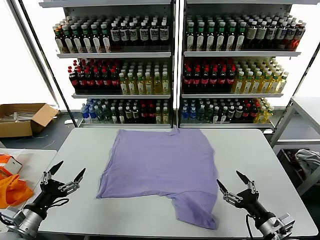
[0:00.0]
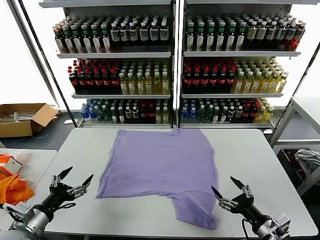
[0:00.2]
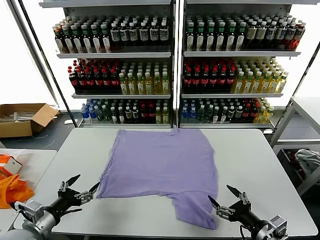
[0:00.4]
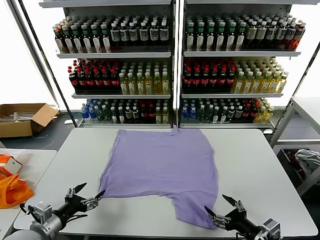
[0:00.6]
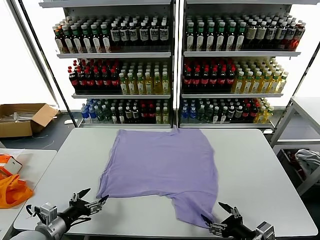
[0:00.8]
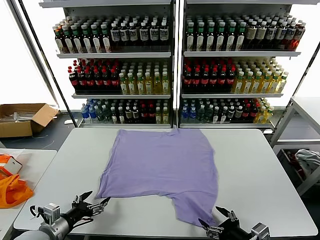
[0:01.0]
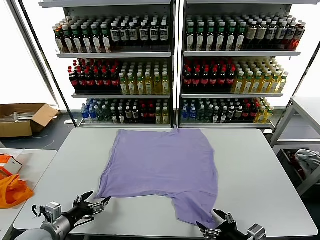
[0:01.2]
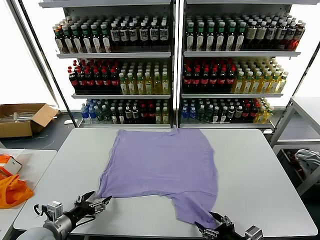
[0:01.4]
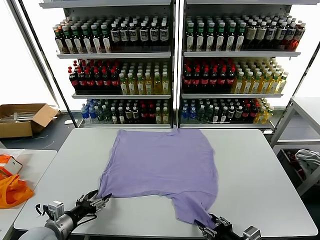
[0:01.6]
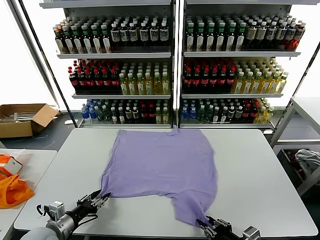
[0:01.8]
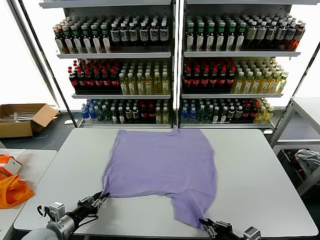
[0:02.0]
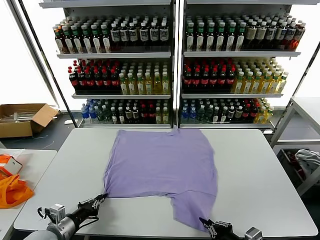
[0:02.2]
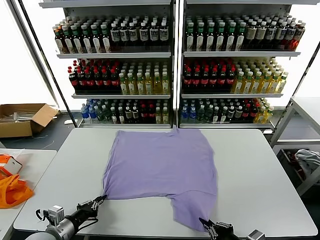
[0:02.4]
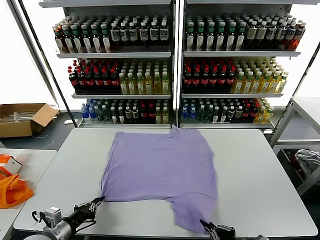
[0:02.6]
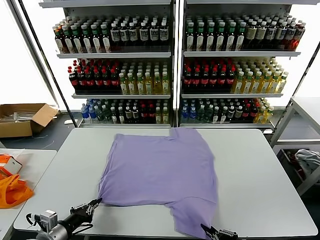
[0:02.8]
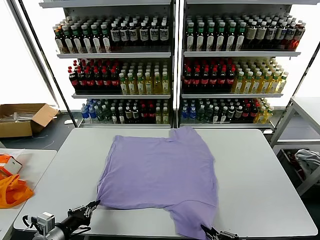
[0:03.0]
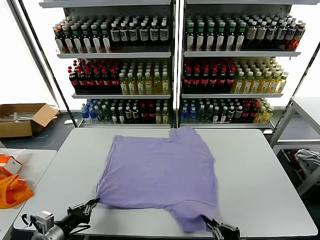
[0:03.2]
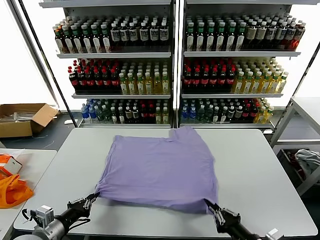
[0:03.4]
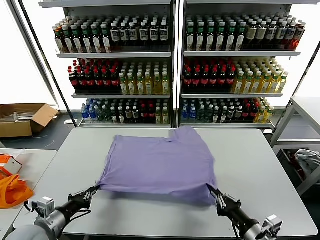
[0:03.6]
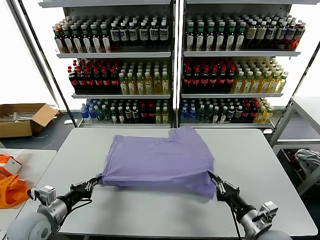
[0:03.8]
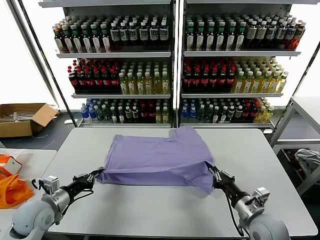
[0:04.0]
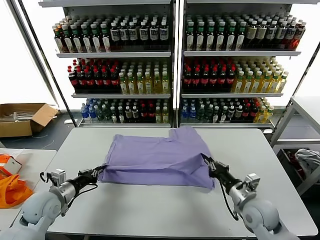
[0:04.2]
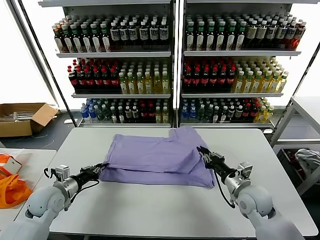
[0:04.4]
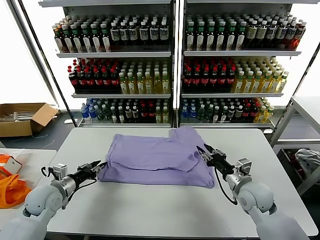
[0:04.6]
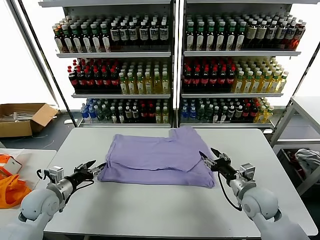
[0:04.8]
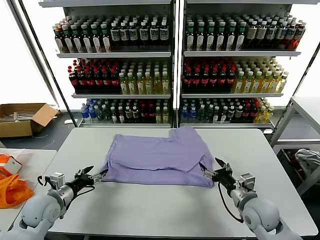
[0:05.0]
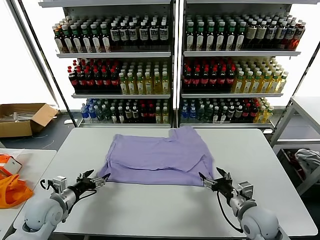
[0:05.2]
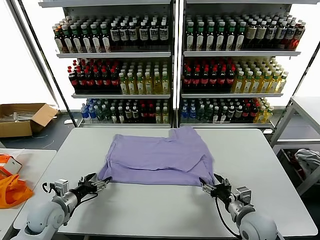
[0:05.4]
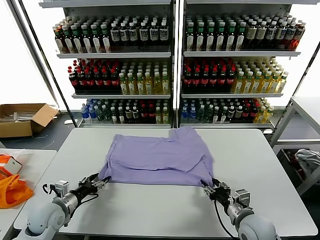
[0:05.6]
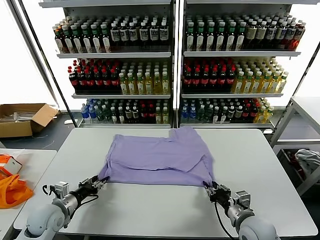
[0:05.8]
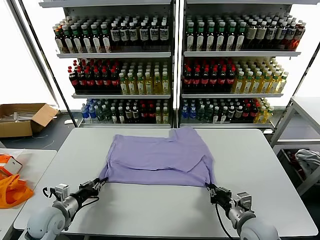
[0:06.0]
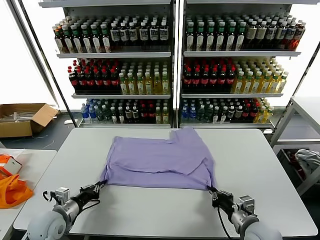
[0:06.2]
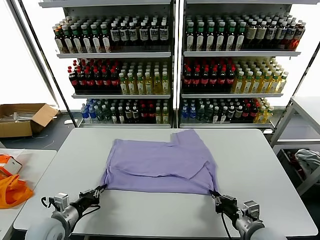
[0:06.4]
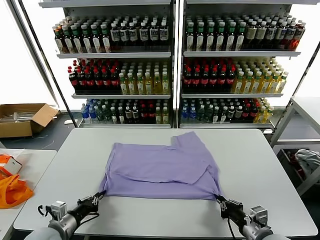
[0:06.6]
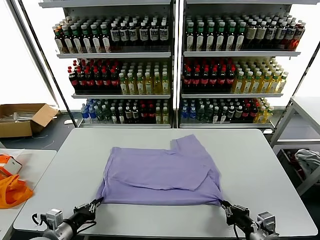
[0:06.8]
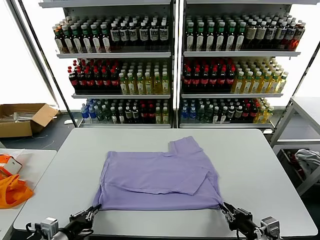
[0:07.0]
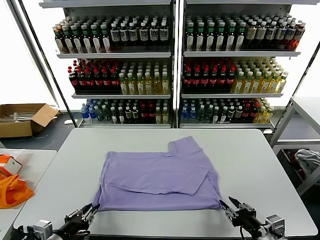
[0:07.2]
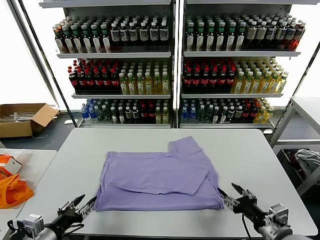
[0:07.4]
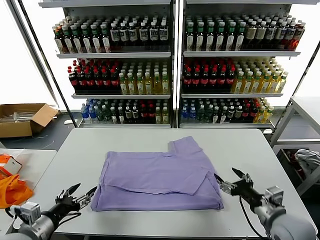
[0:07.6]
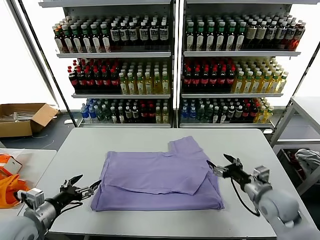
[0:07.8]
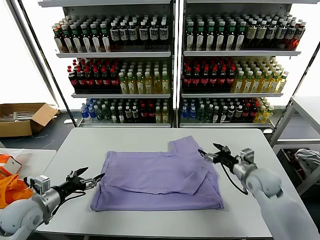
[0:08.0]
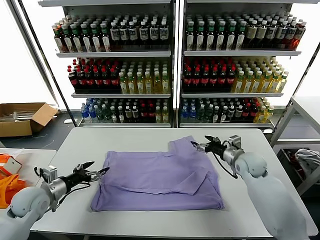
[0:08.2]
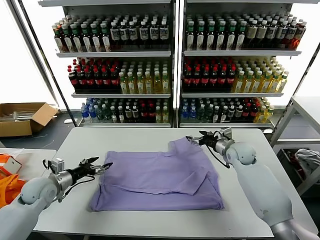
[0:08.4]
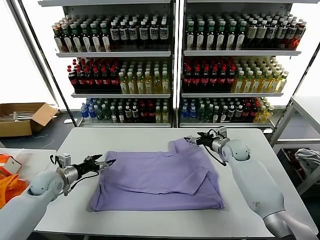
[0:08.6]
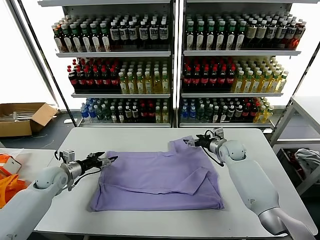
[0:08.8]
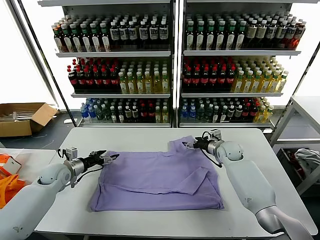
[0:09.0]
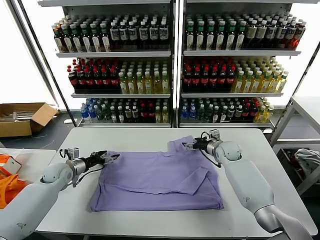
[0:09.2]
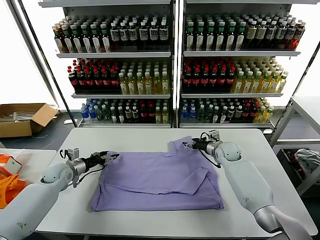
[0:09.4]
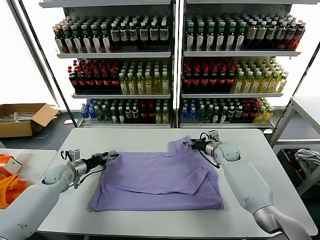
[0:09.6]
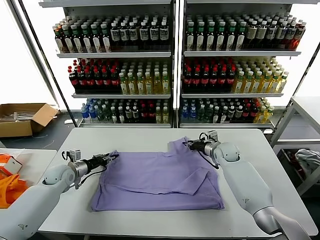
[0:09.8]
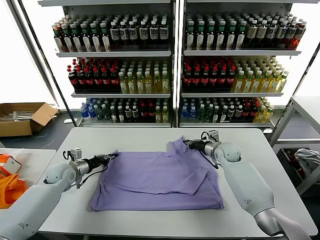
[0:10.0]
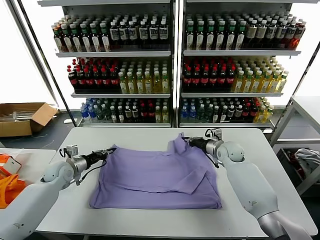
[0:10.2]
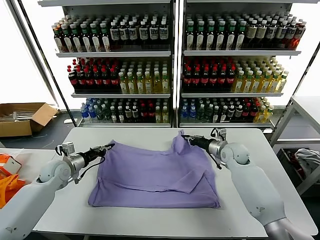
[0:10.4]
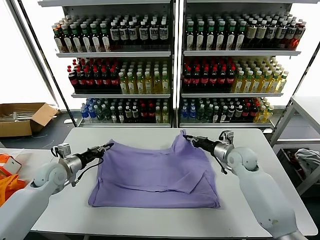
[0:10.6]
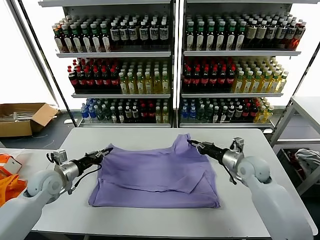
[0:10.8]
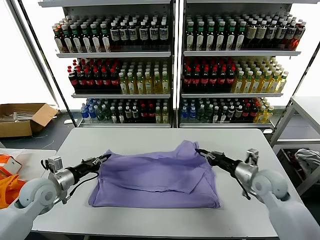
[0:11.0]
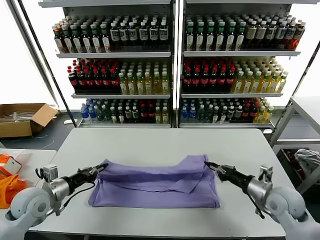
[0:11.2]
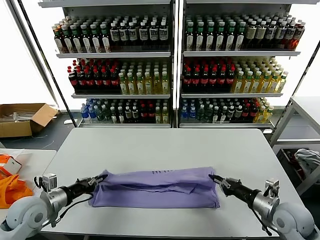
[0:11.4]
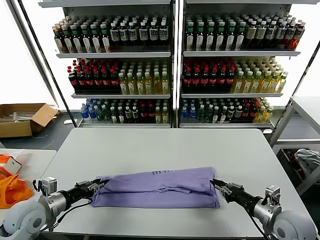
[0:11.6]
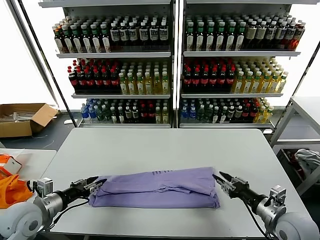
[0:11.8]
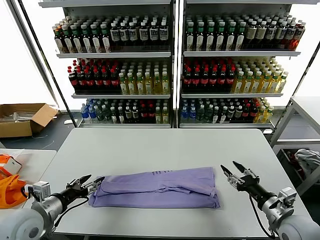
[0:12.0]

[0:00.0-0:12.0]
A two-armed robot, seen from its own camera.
Task of the whole recording: fold and organize the clothes.
Step, 0.0 to 2.2 s: use both grippers simultaneously to clamp the lower edge of the clothing fabric.
Step, 2.4 to 4.6 s: use both grippers to drag the lower edge of the fabric forward and fold it over the upper edge.
Step, 4.8 to 7.2 s: Drag the clothes downward with both gripper.
Step, 7.4 to 9.8 s: use both grippers simultaneously to clamp the upper edge of the clothing fabric.
Step, 10.2 to 11.6 s: use both grippers to drag the upper edge of the fabric backward and fold it over the lower edge.
1.6 to 3.0 s: The right gripper ends up roughly 5 cm from where it was, and closes its fingers; the left gripper shifts by about 5 cm, and closes.
3.0 to 4.4 s: Both grippers move forward, about 20 cm. The right gripper opens.
4.4 to 6.0 s: The left gripper is displaced backward by approximately 5 cm, and opens, then closes again, while the right gripper moves backward, some 10 cm, and opens and closes again.
6.0 to 7.6 s: The right gripper heads upward and to the right, covering roughly 10 cm, moves roughly 10 cm backward and comes back, and opens up. The left gripper heads backward and upward, covering about 15 cm, and opens up.
7.6 to 9.0 s: The grippers both shift forward by approximately 25 cm.
9.0 to 10.4 s: The right gripper shifts about 5 cm backward, and closes, while the left gripper closes its fingers.
10.4 to 12.0 s: The two grippers go about 25 cm backward. The right gripper opens its fingers. The left gripper opens its fingers.

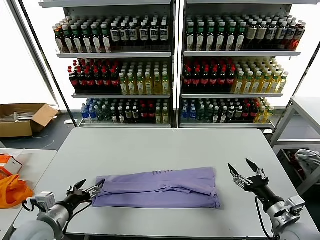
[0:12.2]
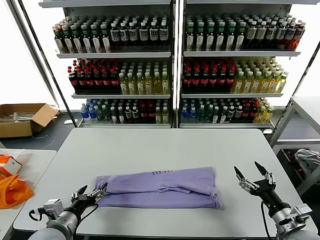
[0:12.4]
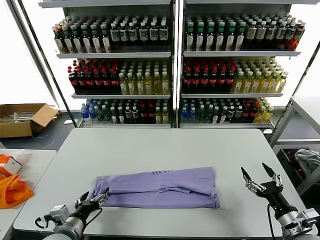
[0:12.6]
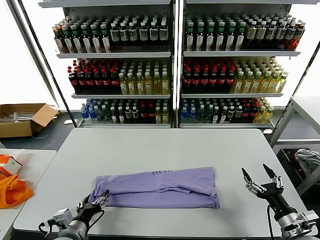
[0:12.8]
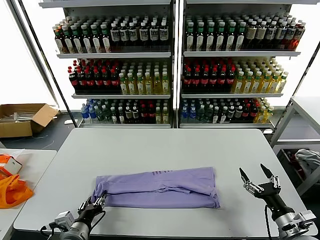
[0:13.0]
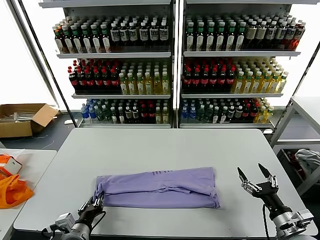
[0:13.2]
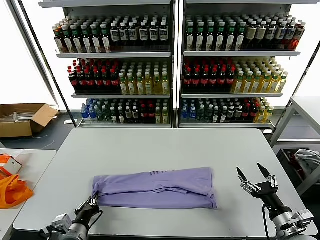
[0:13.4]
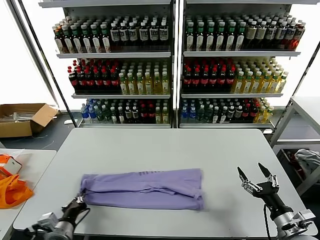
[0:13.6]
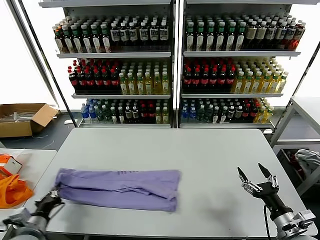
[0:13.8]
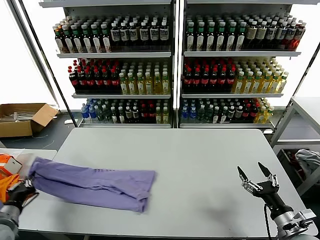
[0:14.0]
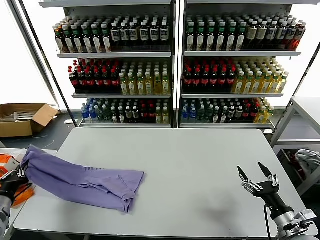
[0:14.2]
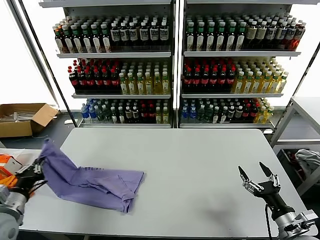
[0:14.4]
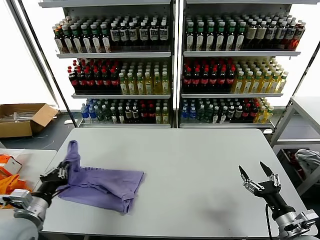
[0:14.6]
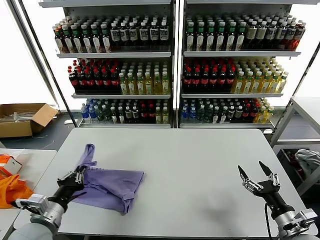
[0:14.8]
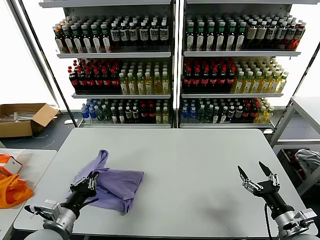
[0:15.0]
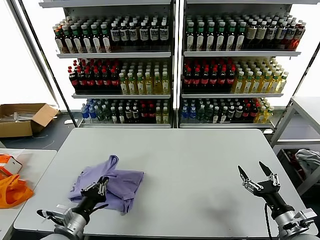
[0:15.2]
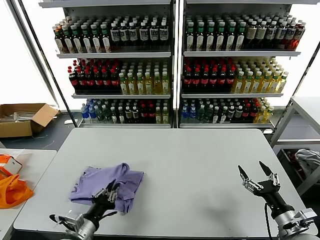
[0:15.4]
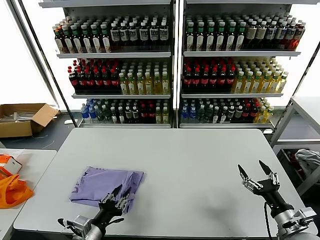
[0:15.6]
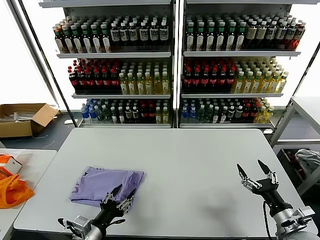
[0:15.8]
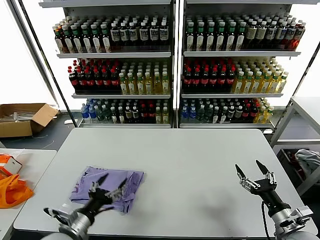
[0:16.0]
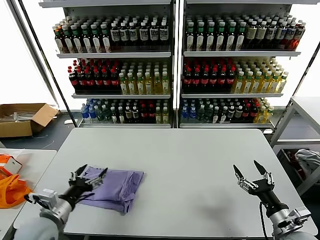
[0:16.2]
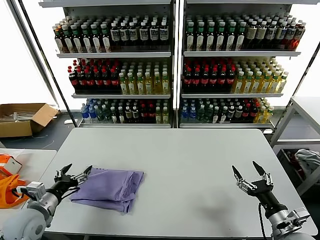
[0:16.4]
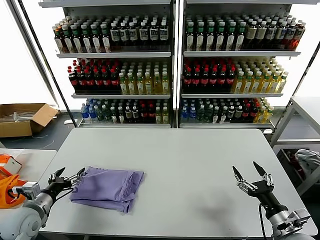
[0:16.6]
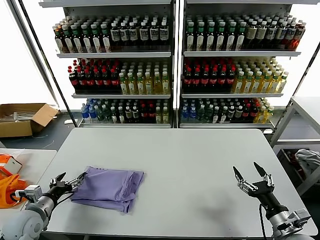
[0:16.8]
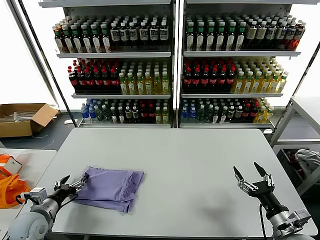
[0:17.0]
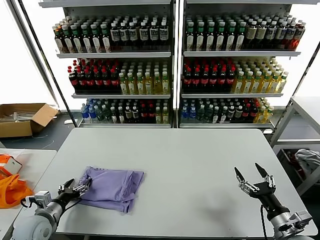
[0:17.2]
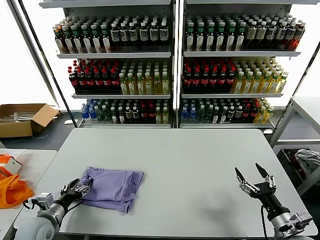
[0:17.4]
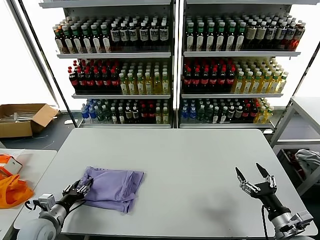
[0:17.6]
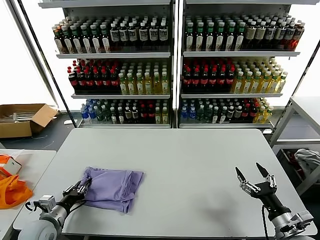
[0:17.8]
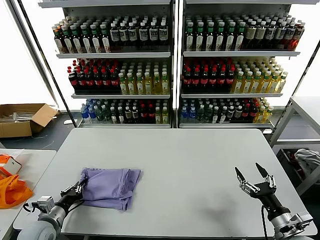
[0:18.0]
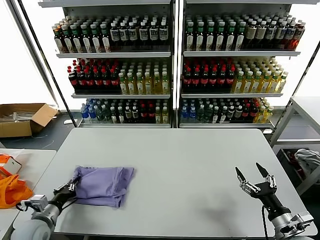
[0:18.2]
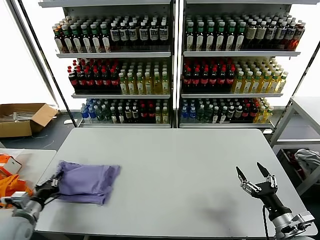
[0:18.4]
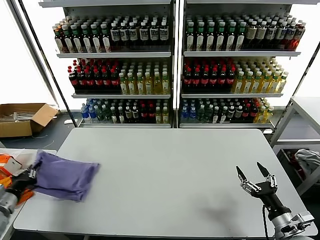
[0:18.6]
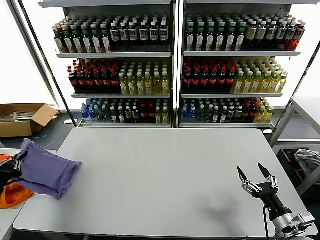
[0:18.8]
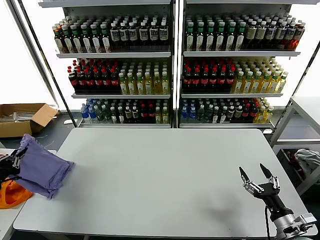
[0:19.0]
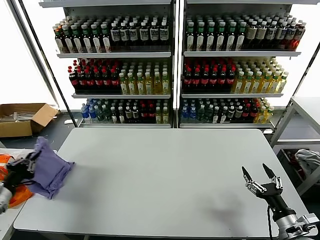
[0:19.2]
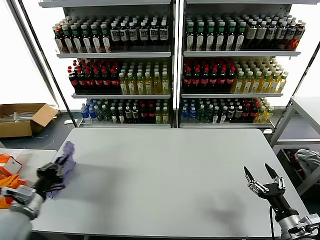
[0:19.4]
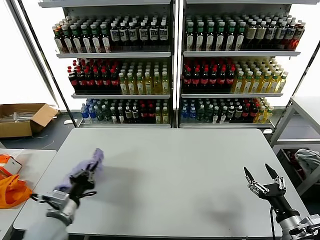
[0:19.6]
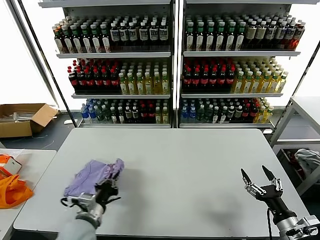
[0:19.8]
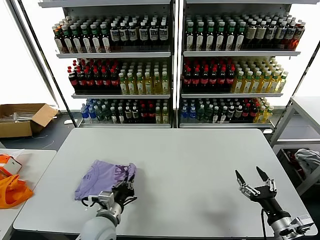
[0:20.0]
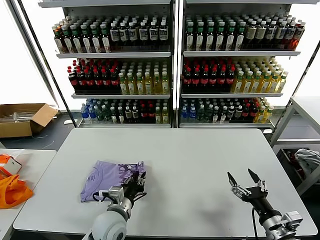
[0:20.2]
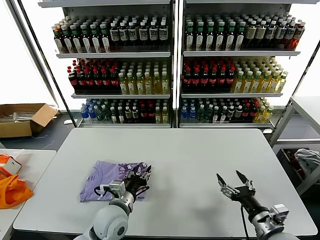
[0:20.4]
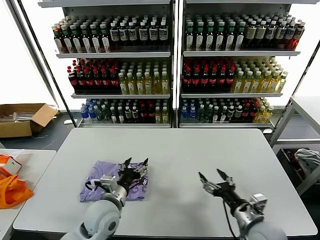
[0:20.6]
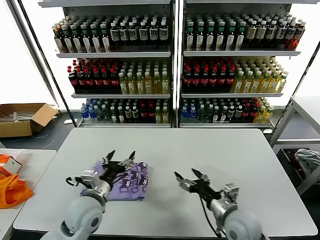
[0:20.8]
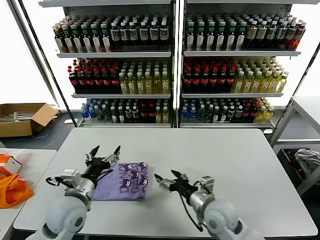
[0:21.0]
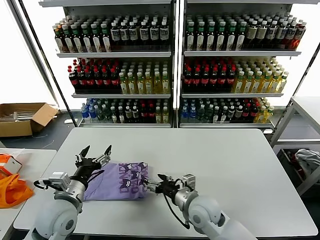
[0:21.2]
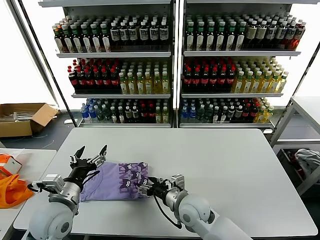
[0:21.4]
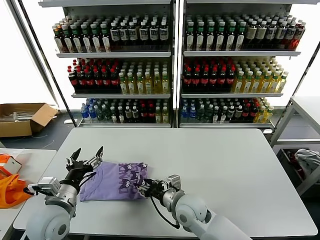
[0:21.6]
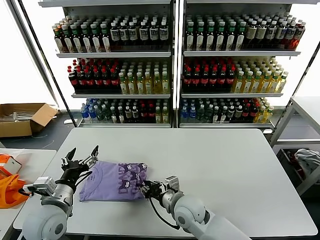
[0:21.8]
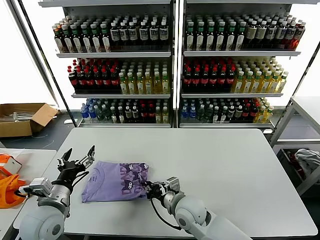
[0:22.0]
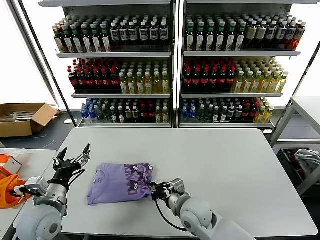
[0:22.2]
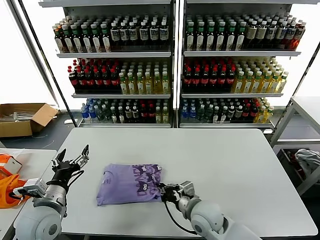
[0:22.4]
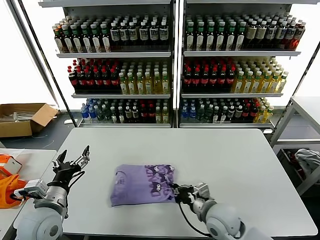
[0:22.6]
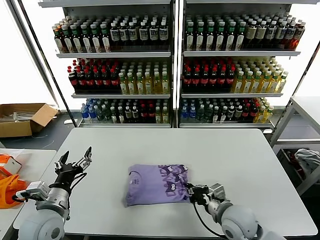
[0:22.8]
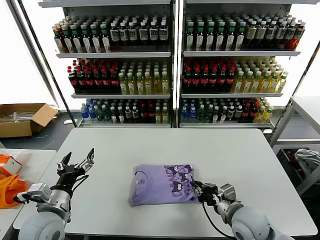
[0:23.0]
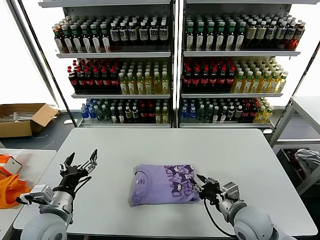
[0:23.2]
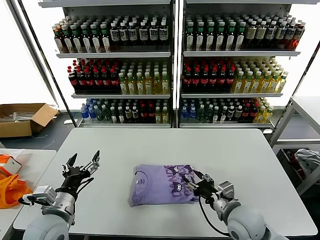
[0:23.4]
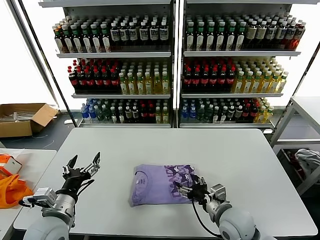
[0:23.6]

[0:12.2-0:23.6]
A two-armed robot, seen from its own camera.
Task of the whole recording: fold and organize the clothes.
Step, 12.2 to 13.4 s: use the left gripper to clamp the left edge of the fabric.
Step, 13.6 to 15.4 s: use the left gripper to drag the left edge of the fabric to the left and folds it over the right edge.
Step, 15.8 to 20.2 s: Flip the folded clothes over with left gripper.
12.2 to 13.6 s: The left gripper goes some 5 cm downward, and closes its fingers.
13.6 to 15.0 s: The left gripper heads upward, covering some 5 cm, and moves some 20 cm to the left and comes back.
15.0 to 16.4 s: The left gripper travels to the left and forward by about 10 cm, and opens.
16.4 to 17.8 s: The left gripper travels downward by roughly 10 cm, and closes.
17.8 to 19.4 s: The left gripper goes some 10 cm upward, and reaches approximately 15 cm to the left, then returns.
19.4 to 20.8 s: The right gripper heads to the left and forward, covering some 20 cm; the left gripper shifts some 20 cm to the right, and opens.
20.8 to 22.2 s: The two grippers go approximately 10 cm to the left. The right gripper closes up.
22.2 to 23.6 s: The right gripper heads to the right, covering some 10 cm, and opens.
